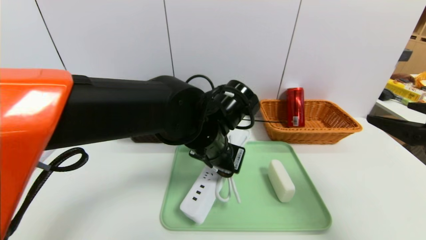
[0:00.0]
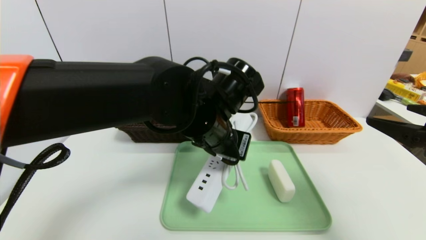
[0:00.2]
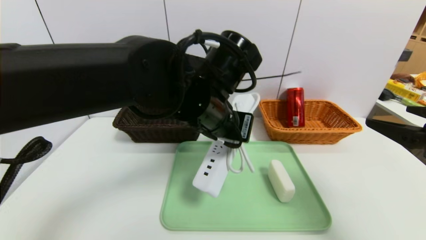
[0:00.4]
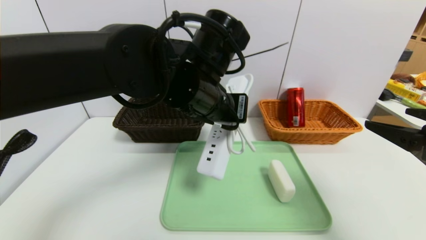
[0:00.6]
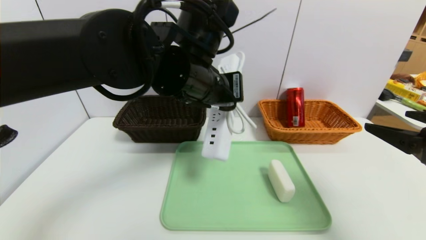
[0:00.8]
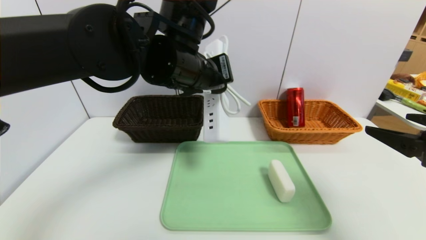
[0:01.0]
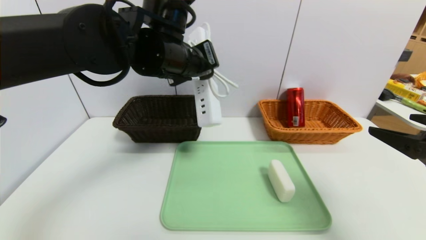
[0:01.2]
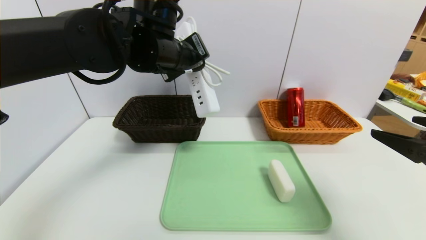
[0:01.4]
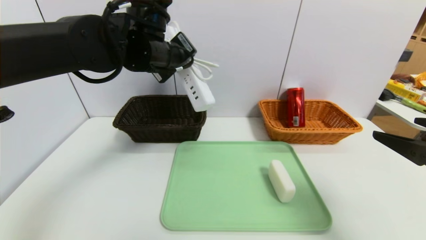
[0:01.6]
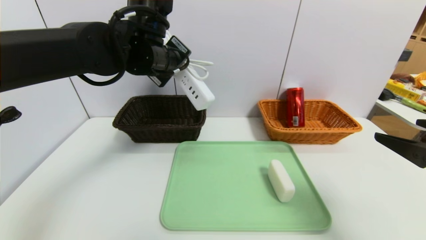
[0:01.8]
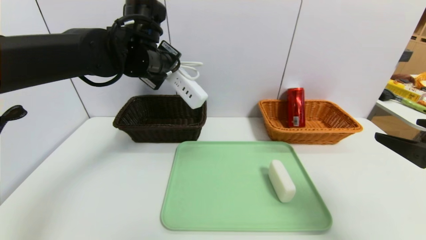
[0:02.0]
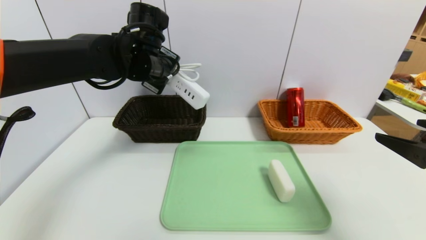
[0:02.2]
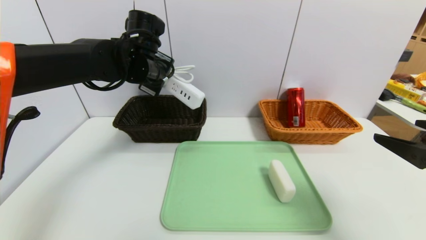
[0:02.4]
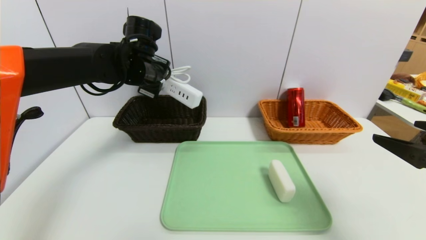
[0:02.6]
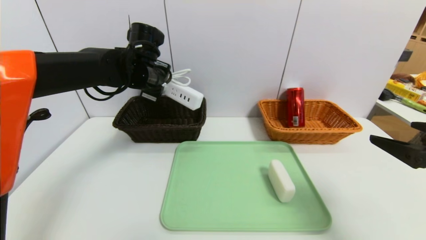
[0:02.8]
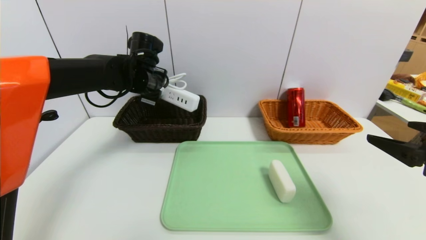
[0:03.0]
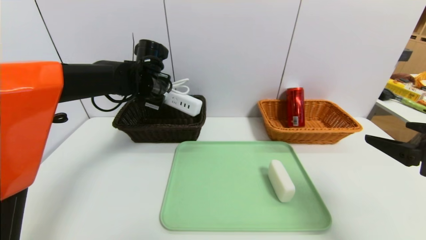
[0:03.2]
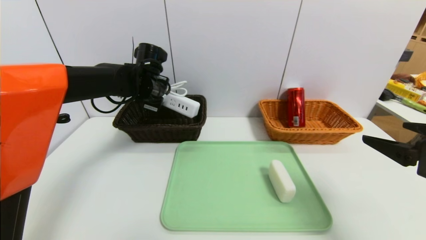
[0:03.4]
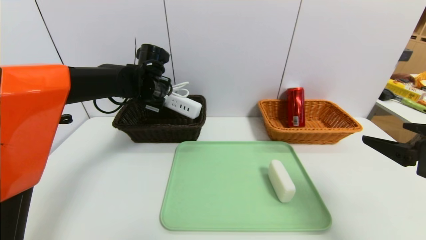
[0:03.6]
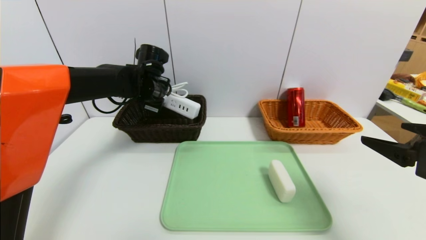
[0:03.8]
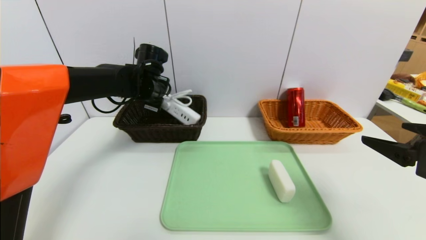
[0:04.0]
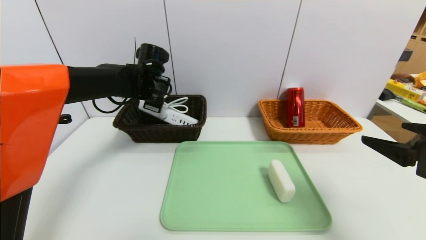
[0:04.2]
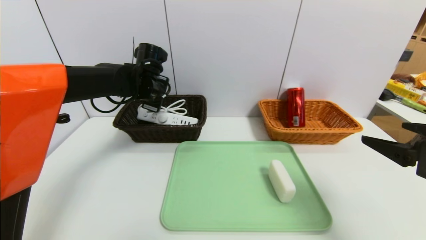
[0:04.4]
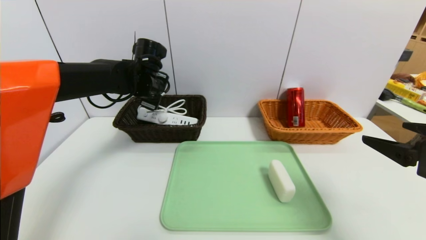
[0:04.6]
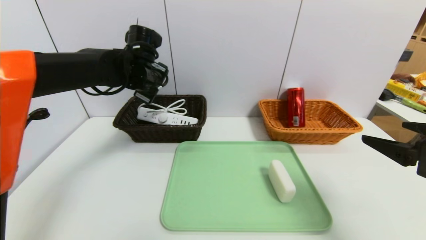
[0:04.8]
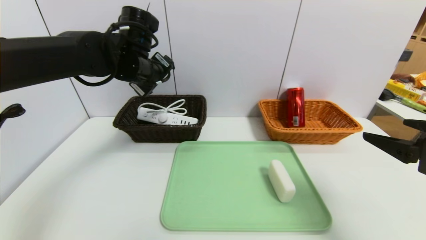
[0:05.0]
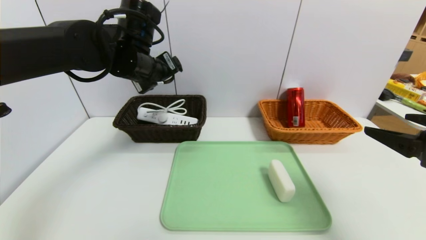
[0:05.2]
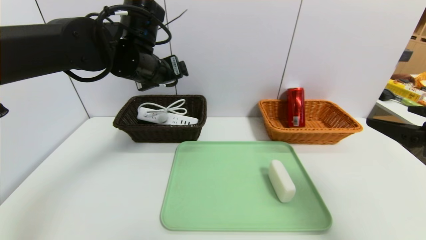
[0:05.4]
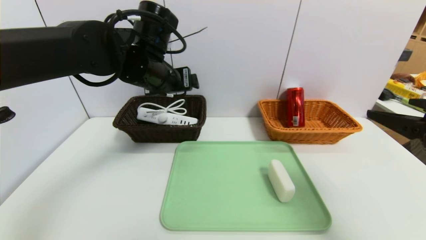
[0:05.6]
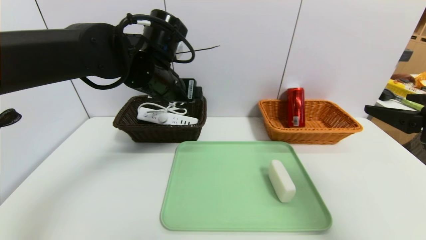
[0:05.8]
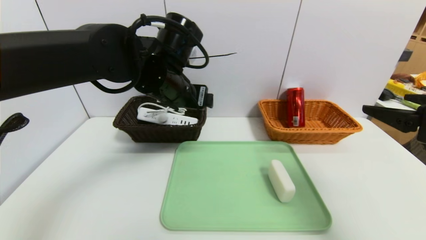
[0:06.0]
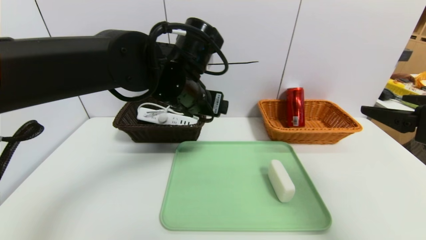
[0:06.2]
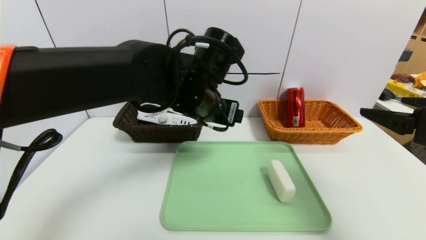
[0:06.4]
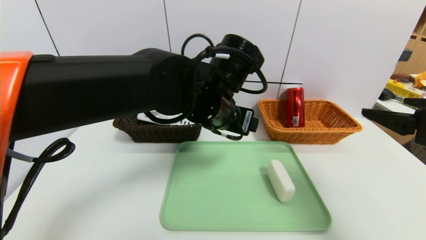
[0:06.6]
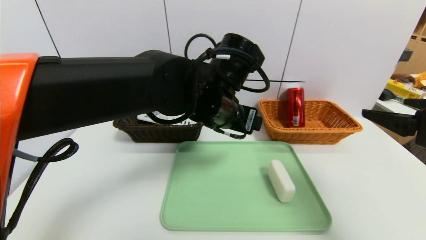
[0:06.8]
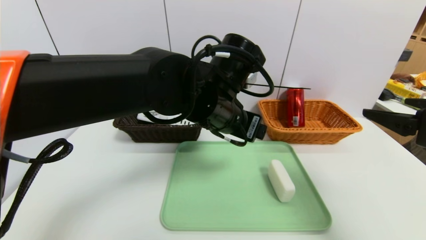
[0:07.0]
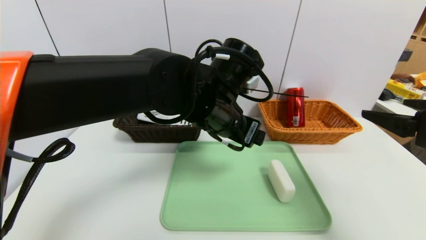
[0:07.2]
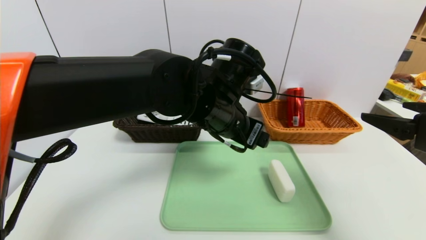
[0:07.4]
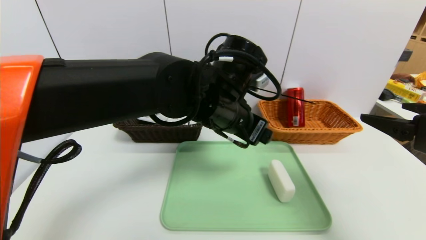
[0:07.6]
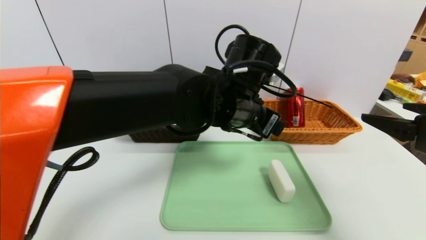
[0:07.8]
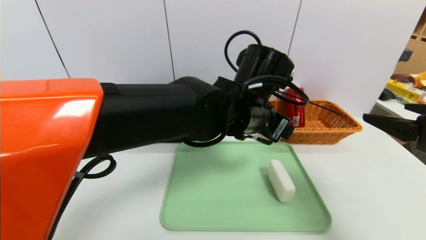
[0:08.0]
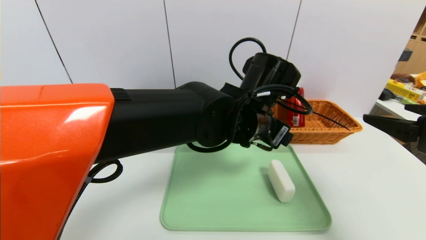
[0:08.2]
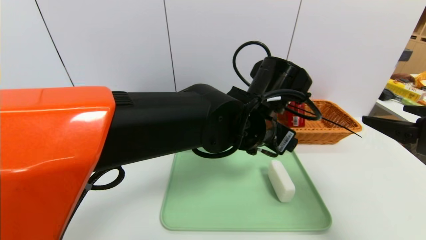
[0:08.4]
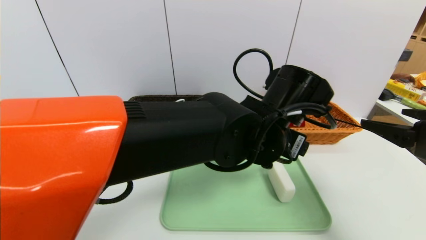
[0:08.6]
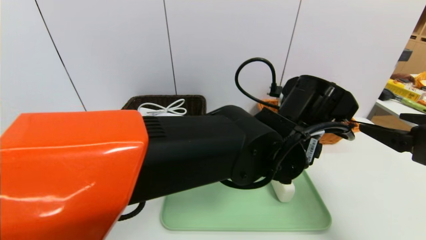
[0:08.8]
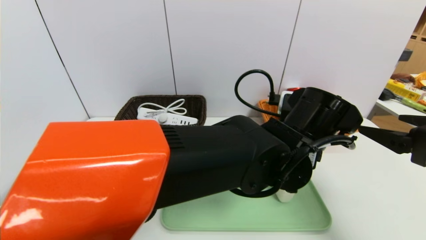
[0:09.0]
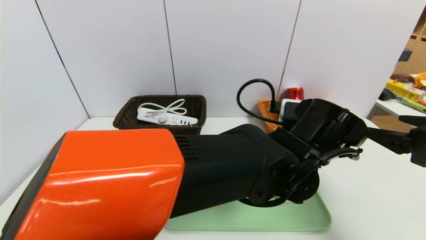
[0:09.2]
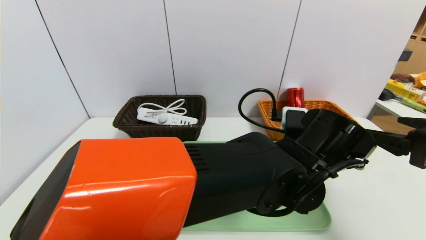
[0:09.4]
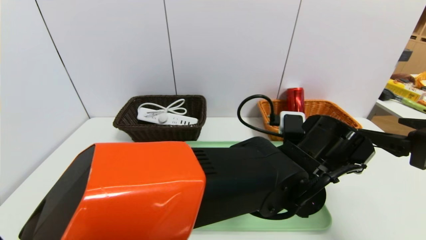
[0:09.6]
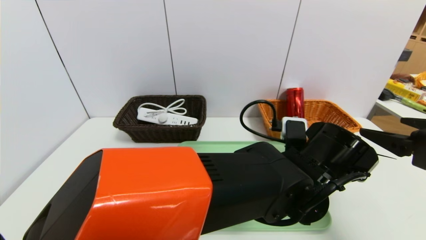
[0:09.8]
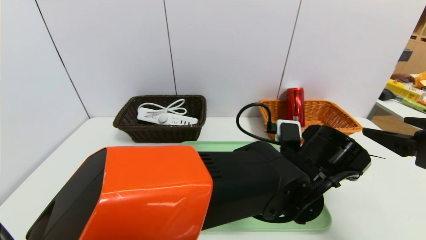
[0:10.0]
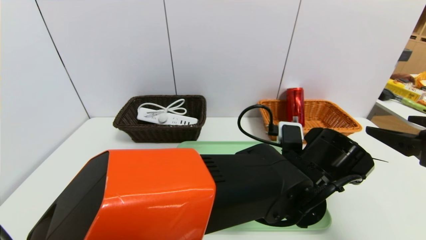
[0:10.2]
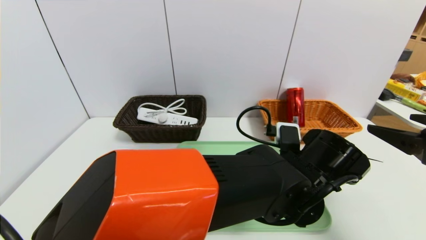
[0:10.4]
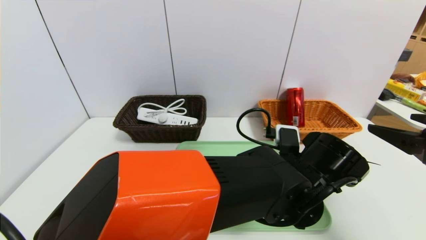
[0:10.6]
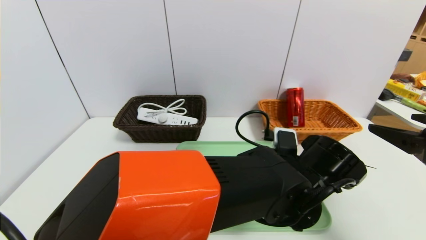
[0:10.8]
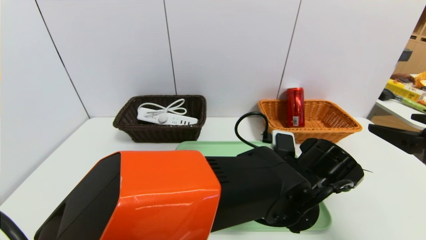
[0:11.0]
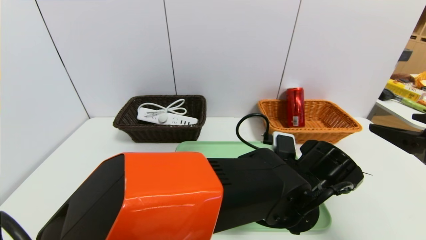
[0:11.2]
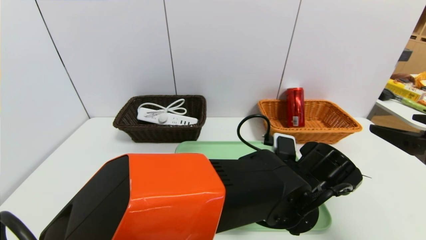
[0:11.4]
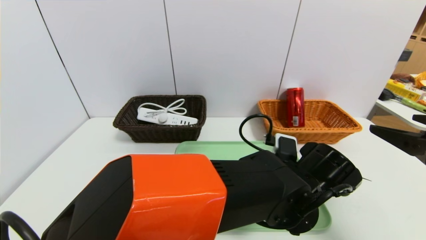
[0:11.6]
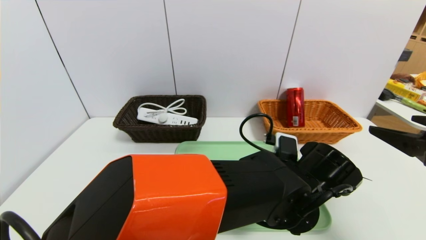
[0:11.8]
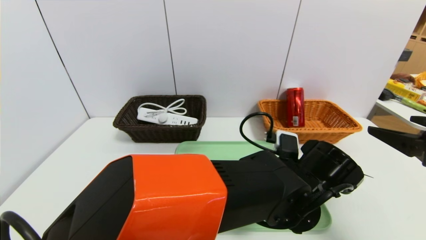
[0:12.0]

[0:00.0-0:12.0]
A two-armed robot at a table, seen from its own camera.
Task of the whole recording: place the food in the right basket with the right gripper, and place the non food items in the left basket with the left gripper.
Step, 0:00.0 to 0:04.6: Grasp the power strip and put it in the left basket.
0:00.0 to 0:01.6: The left gripper shifts roughly 15 cm upward, to the left and forward.
0:01.6 to 0:03.0: The left gripper is displaced forward, downward and to the left by some 10 cm.
0:03.0 to 0:04.4: The left gripper opens up.
0:04.4 to 0:06.0: The left gripper is displaced backward, to the right and upward by some 15 cm.
0:06.0 to 0:07.6: The left gripper moves to the right, about 10 cm.
0:07.6 to 0:09.0: The left gripper moves to the right and downward, some 10 cm.
0:09.0 to 0:10.4: The left gripper shifts roughly 5 cm downward.
0:10.4 to 0:12.0: The grippers move only a little.

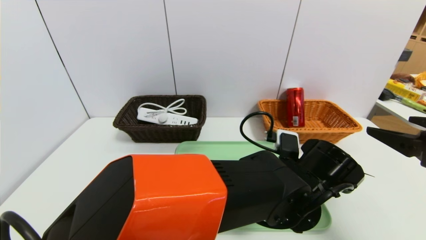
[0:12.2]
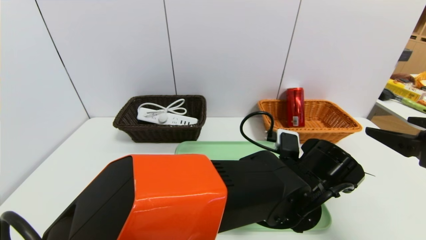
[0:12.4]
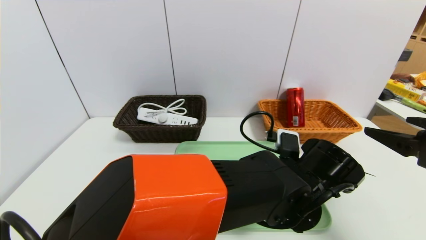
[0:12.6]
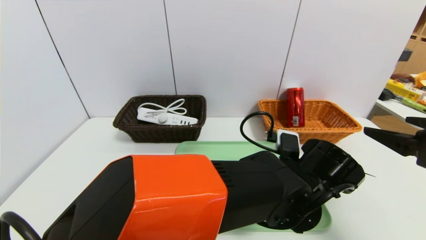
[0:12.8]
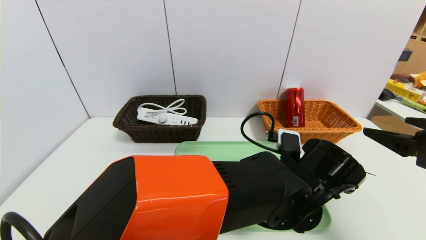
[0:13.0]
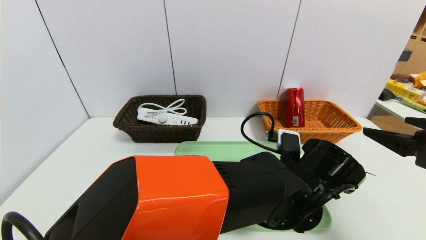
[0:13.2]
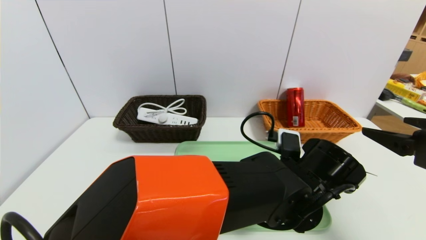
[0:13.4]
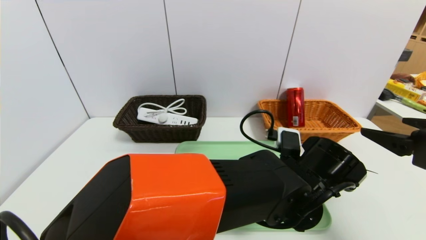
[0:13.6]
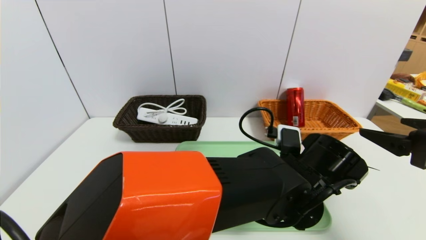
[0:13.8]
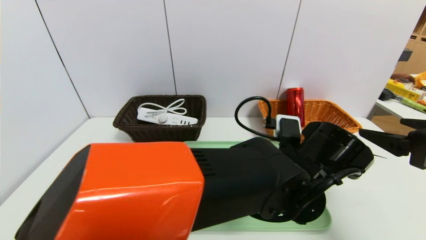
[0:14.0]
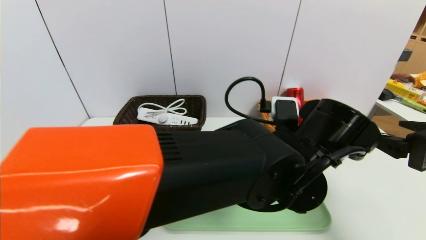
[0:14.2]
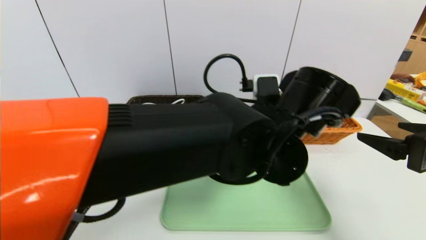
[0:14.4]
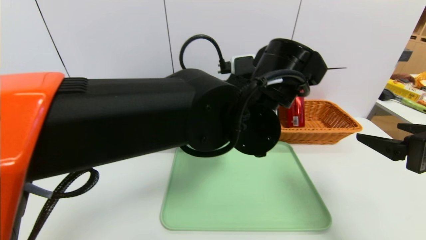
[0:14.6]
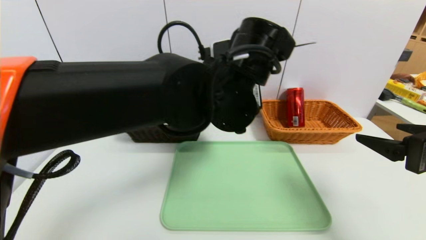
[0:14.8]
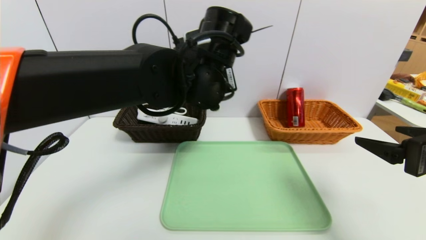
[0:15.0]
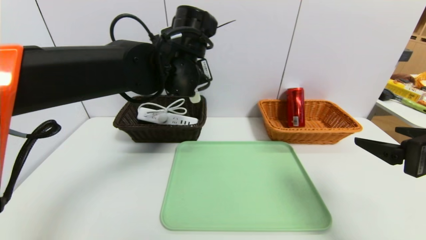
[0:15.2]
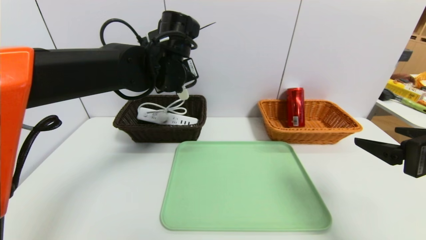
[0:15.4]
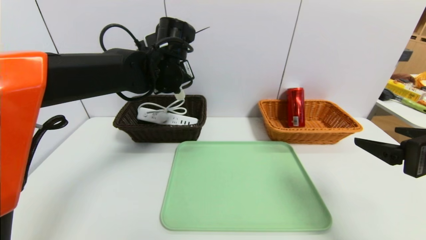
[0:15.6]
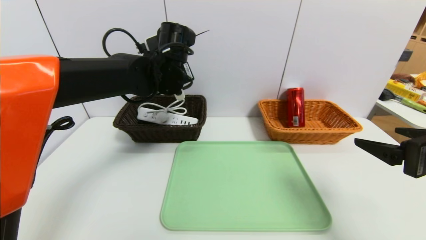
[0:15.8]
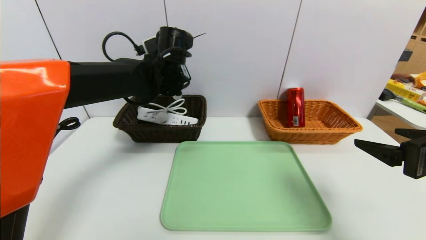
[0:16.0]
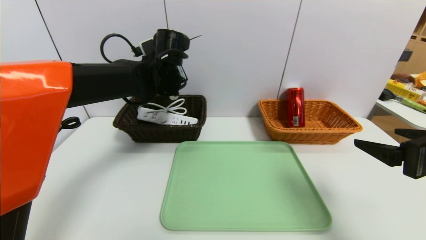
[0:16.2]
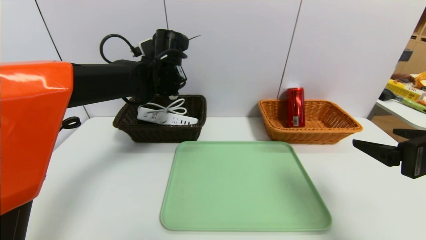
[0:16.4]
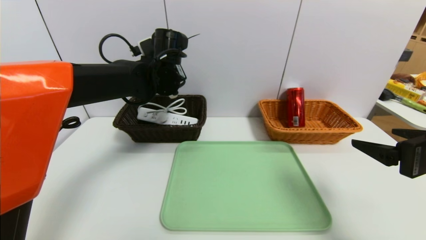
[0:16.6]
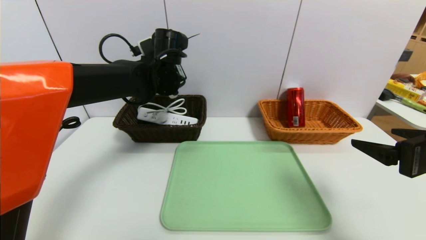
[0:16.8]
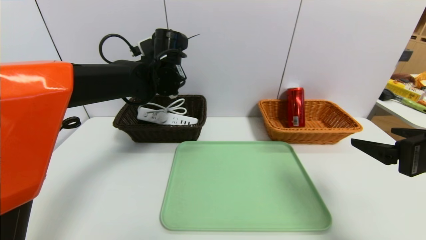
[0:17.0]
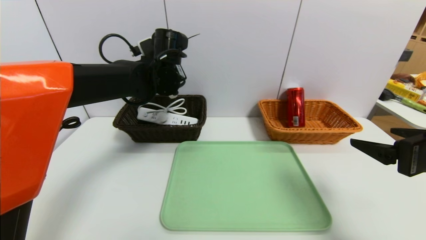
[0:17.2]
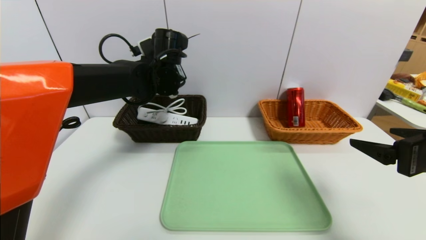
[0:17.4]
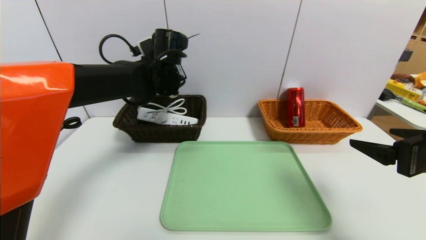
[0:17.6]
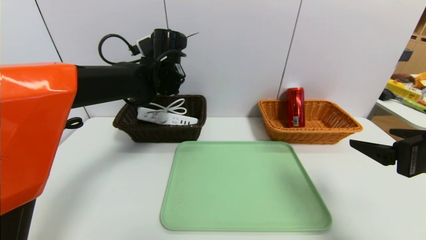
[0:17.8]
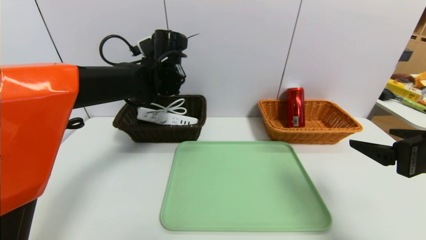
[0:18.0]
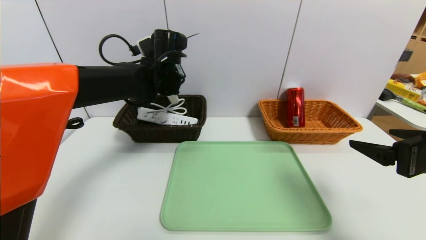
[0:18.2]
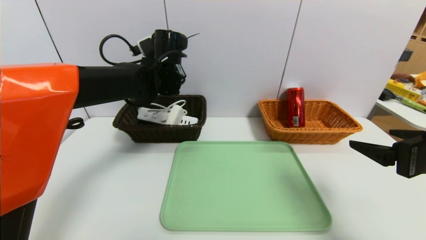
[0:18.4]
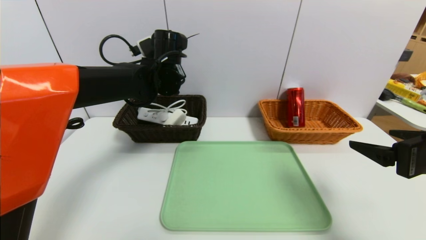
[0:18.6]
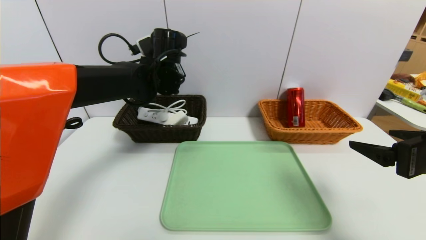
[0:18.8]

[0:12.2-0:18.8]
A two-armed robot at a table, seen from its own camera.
Task of the whole recording: place the food in the right basket with the right gripper, and place the non food items in the left basket with the left gripper.
Step, 0:12.2 to 0:18.8: Grasp the soap and put it in the left basket.
0:12.2 to 0:13.8: The left gripper closes.
0:13.8 to 0:15.4: The left gripper goes some 30 cm to the left, forward and upward.
0:15.4 to 0:17.2: The left gripper ends up about 5 cm from where it was.
0:17.2 to 0:18.8: The left gripper opens its fingers.
